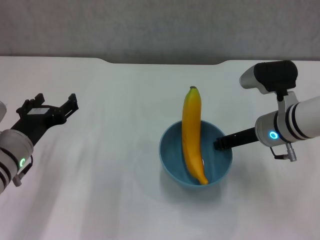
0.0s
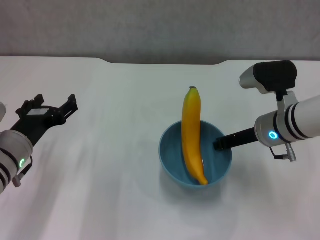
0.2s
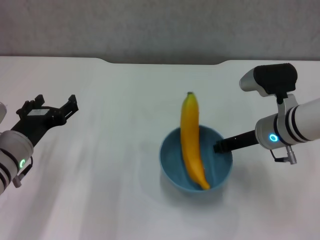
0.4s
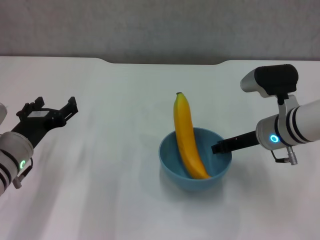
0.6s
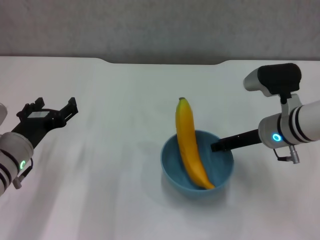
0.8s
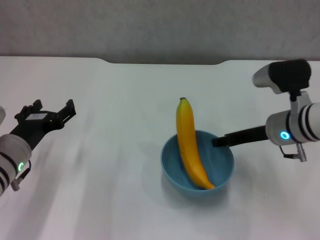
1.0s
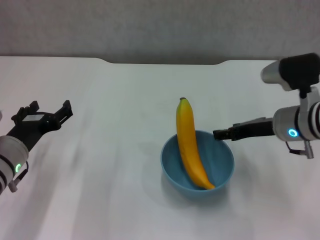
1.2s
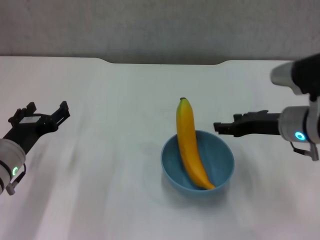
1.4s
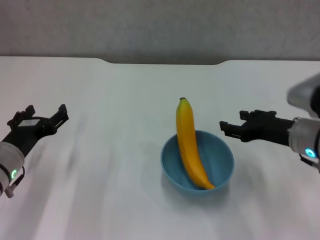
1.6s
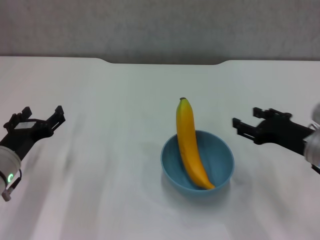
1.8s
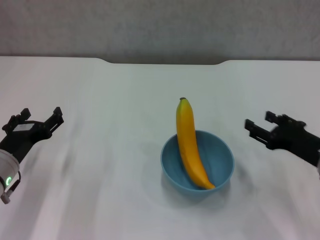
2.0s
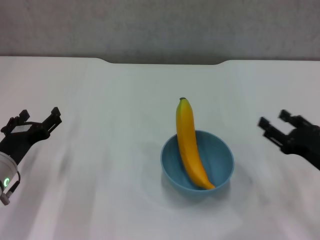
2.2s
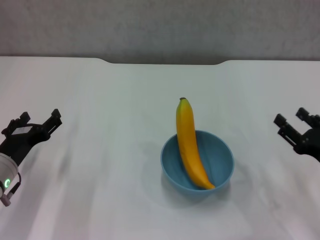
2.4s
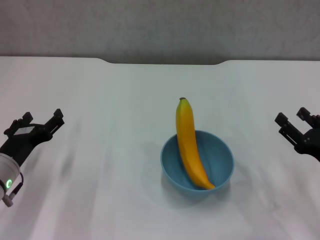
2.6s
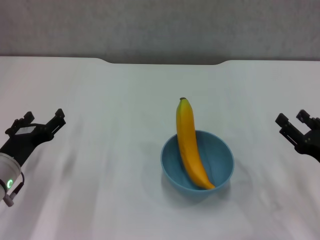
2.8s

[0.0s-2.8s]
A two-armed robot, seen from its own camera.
0.0s to 1.4s: The right gripper opens up.
1.4s to 2.8s: The right gripper shifts roughly 15 cm backward, to the right and downward.
